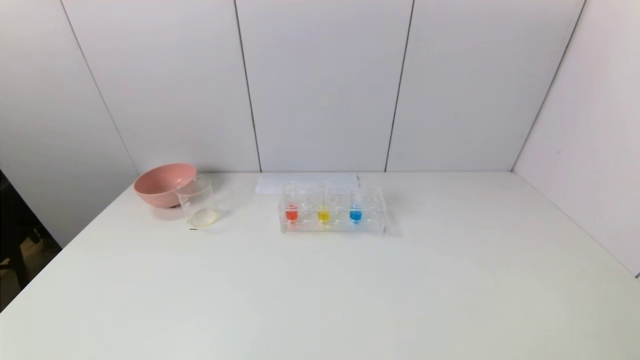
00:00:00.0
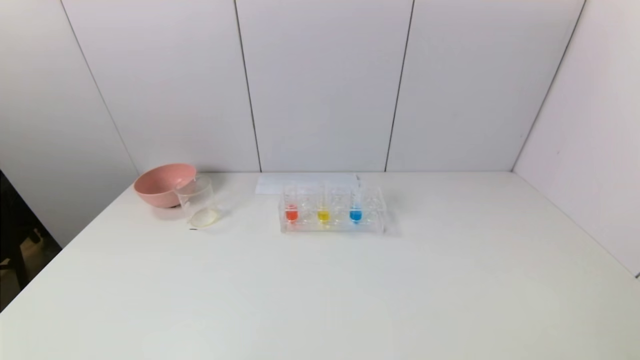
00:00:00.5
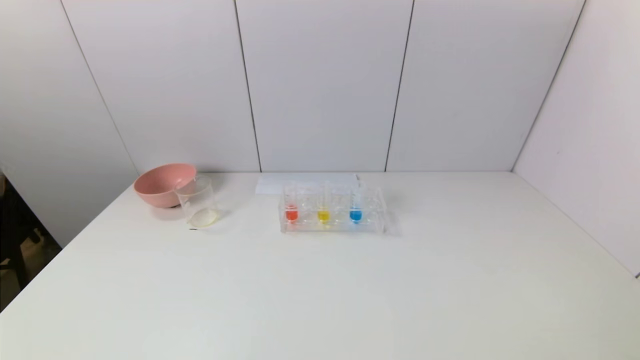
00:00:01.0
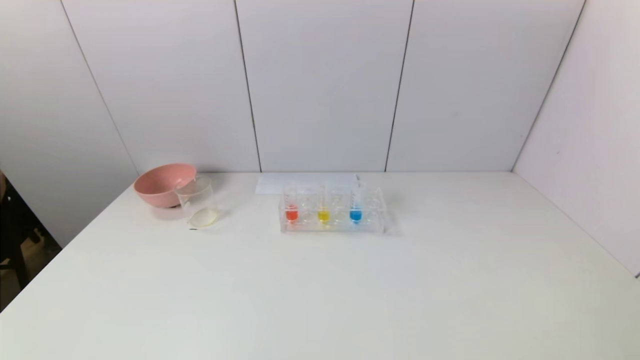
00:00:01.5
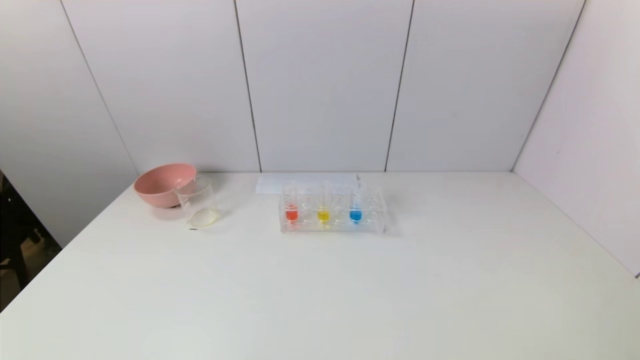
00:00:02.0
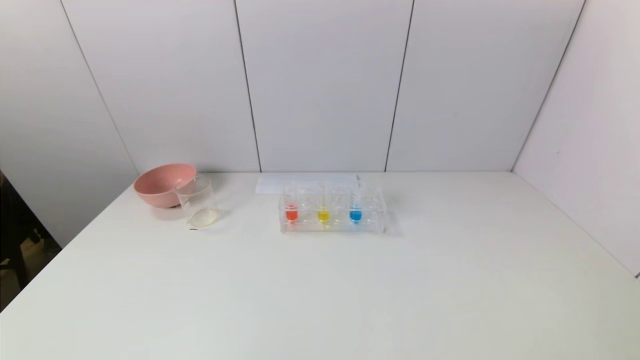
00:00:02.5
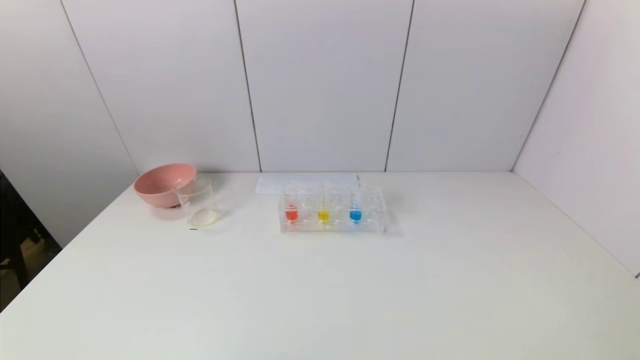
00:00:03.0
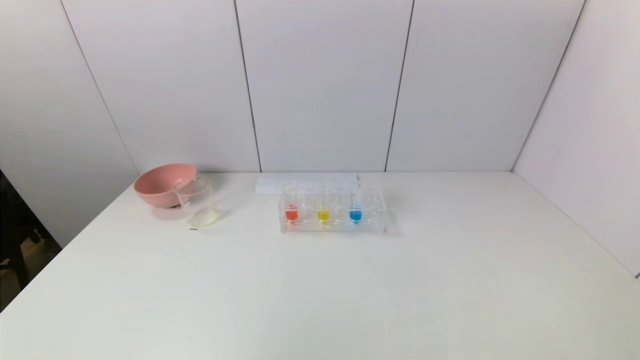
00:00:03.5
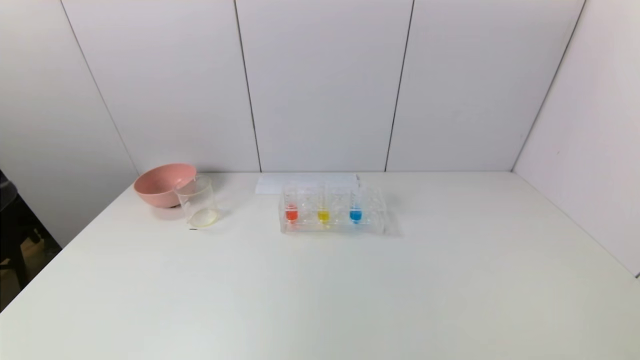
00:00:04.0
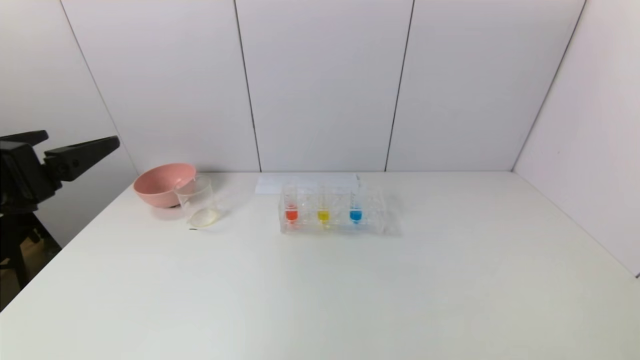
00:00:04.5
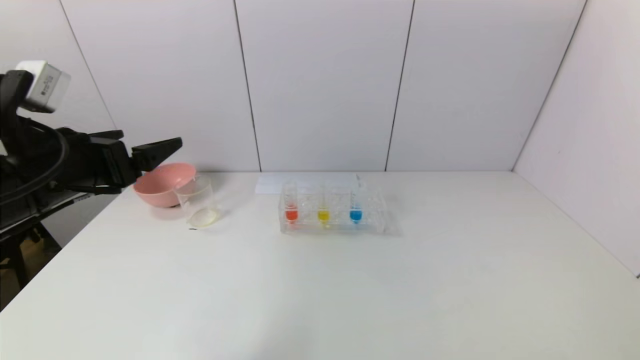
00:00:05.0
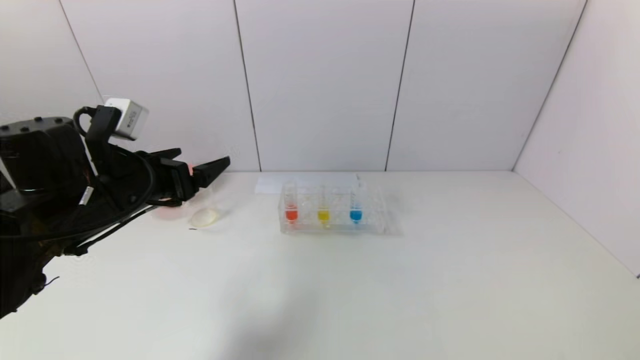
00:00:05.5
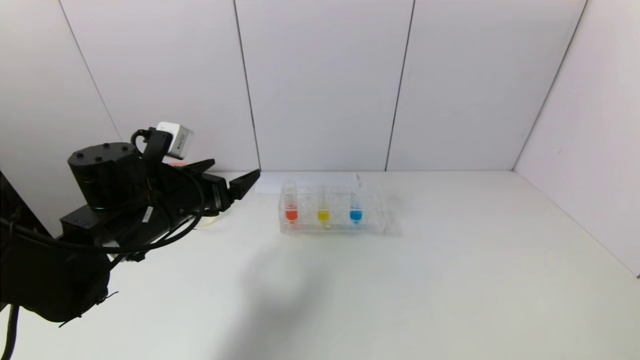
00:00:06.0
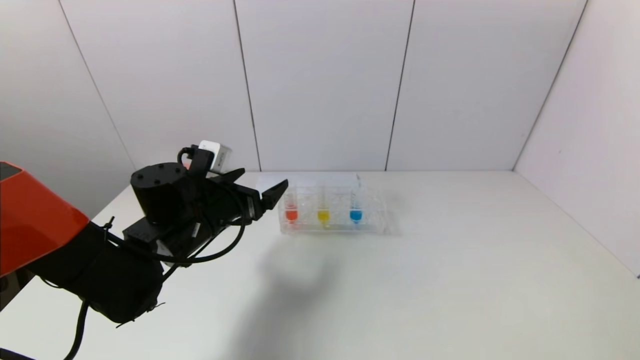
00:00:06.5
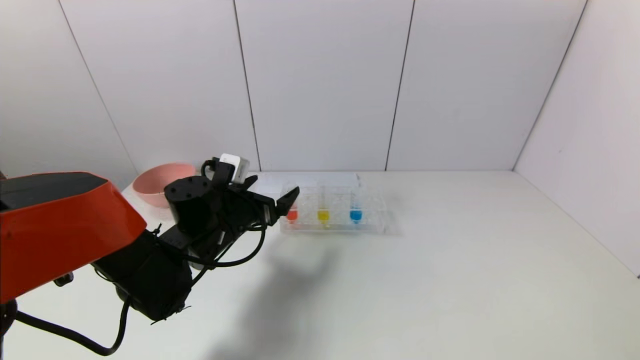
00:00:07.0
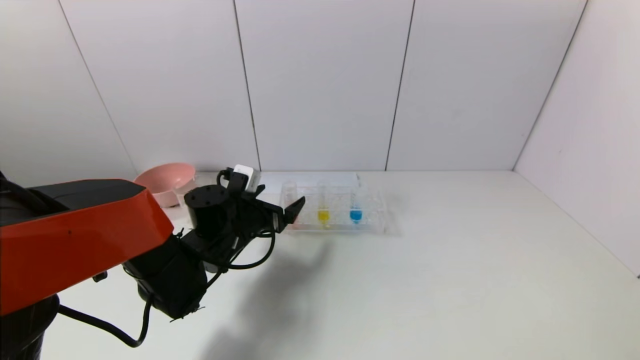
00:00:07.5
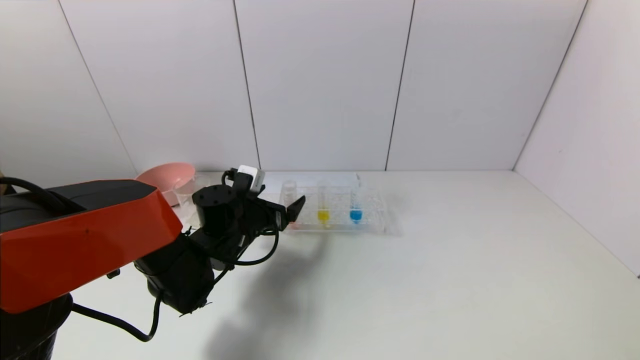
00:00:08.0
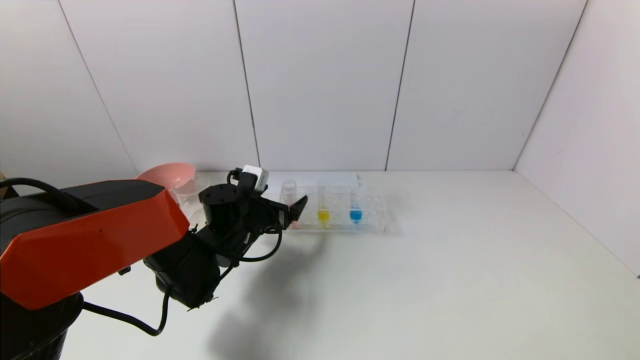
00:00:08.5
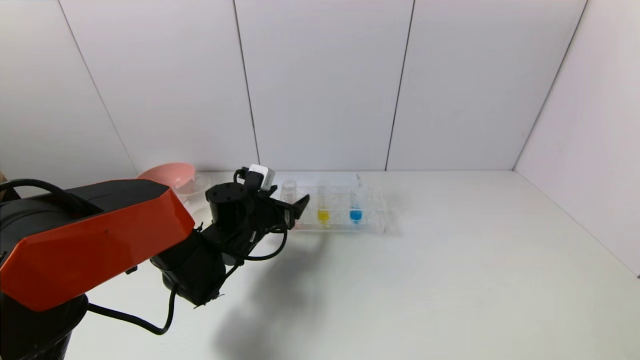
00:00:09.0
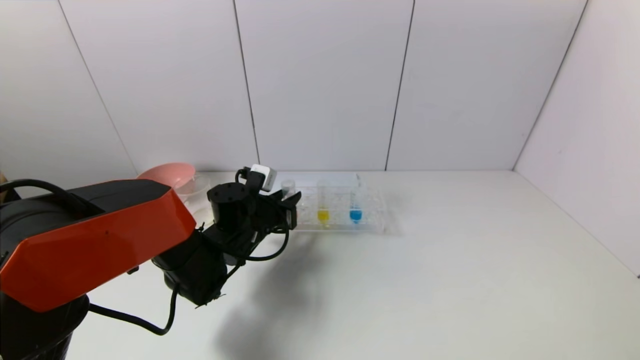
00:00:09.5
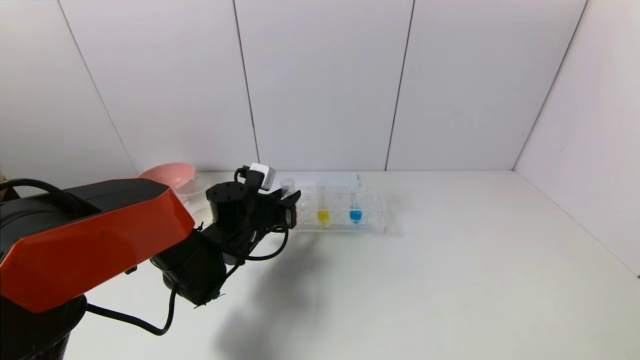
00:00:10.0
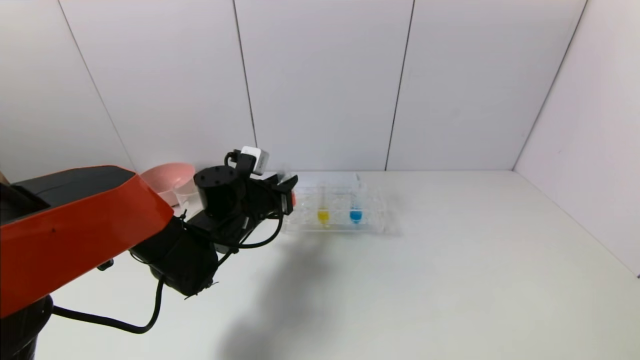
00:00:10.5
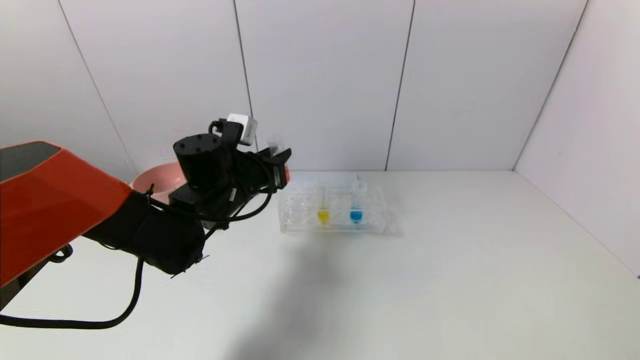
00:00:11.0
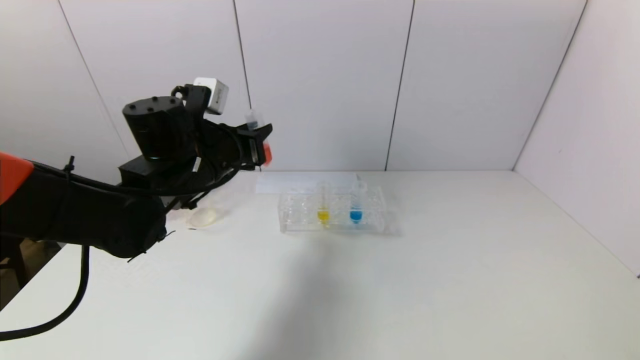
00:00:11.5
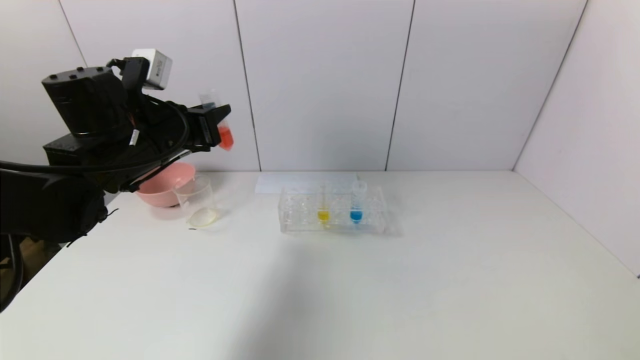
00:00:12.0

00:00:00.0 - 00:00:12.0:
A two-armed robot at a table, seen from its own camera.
Task of the whole recording: pick up the test tube with yellow pigment and the test tube with red pigment by grippers and pour them into the beaker.
Step, 00:00:00.0 - 00:00:09.5: Grasp the red reagent with the left gripper.
00:00:00.0 - 00:00:02.0: Both grippers stay about where they are.
00:00:04.0 - 00:00:06.0: The left gripper goes some 25 cm forward and downward.
00:00:06.0 - 00:00:08.0: The left gripper goes approximately 15 cm downward, to the right and forward.
00:00:08.0 - 00:00:10.0: The left gripper closes.
00:00:10.0 - 00:00:12.0: The left gripper heads upward and to the left, covering approximately 20 cm.

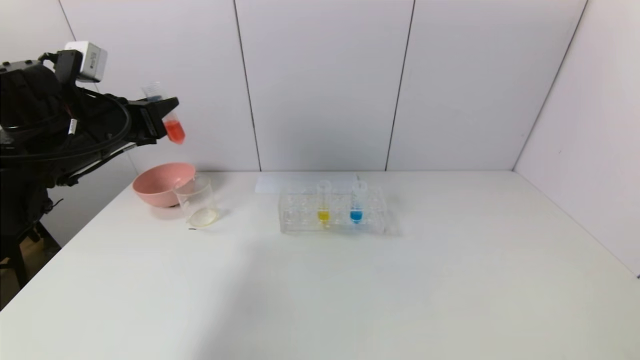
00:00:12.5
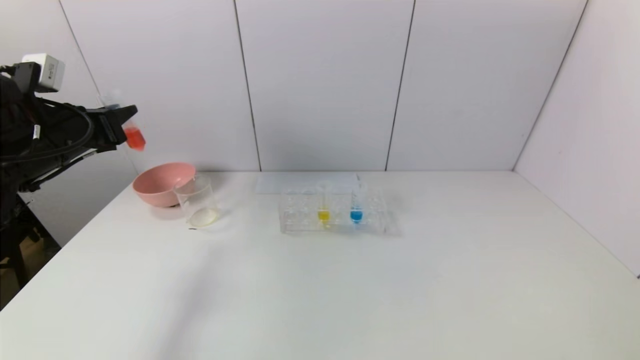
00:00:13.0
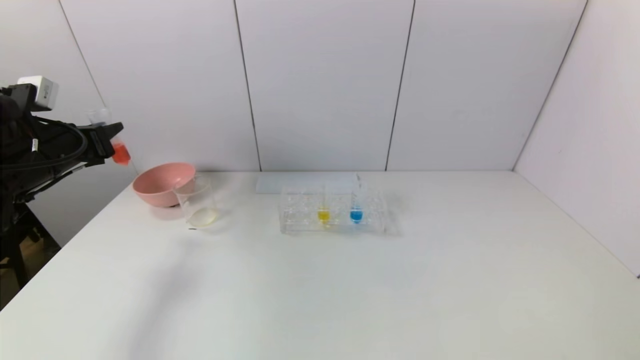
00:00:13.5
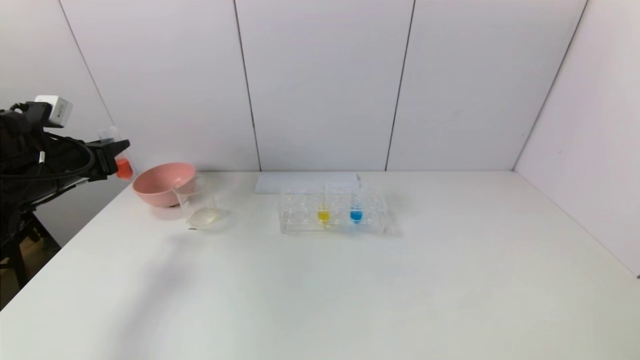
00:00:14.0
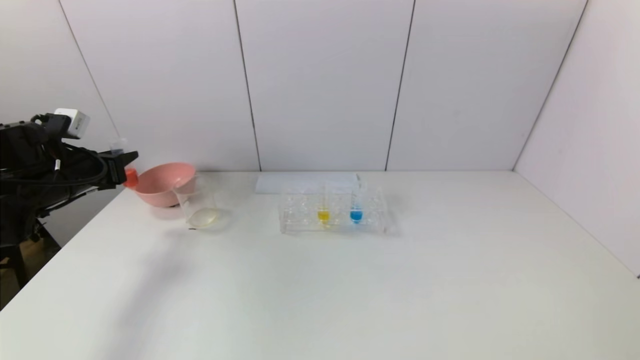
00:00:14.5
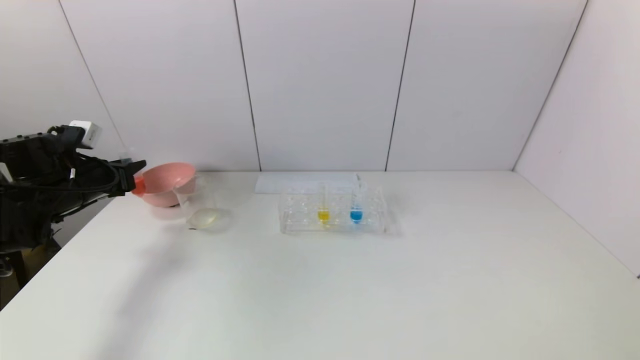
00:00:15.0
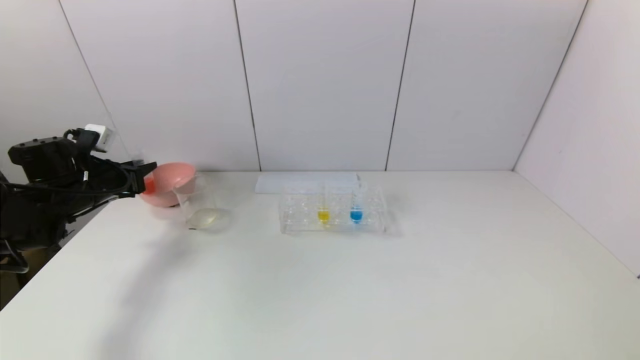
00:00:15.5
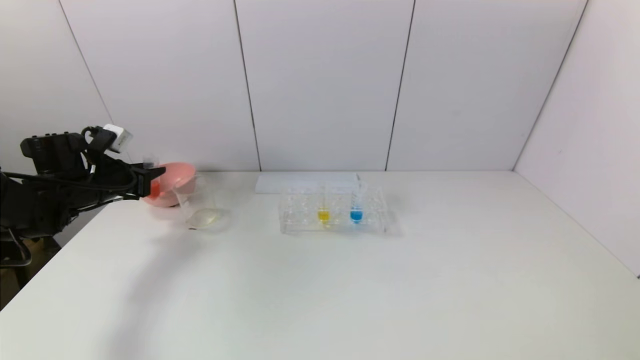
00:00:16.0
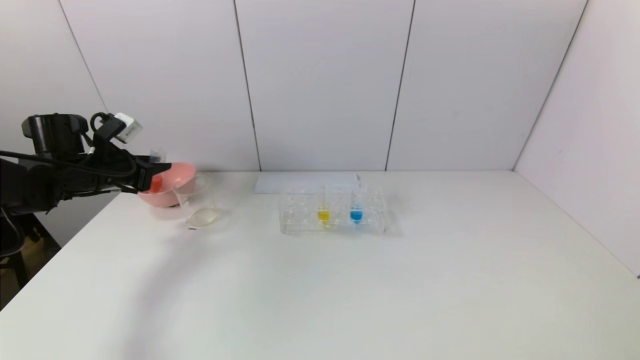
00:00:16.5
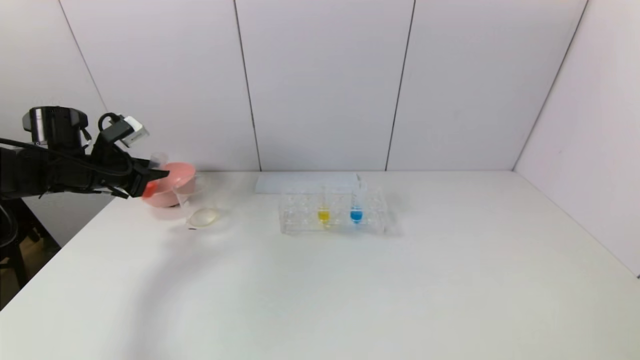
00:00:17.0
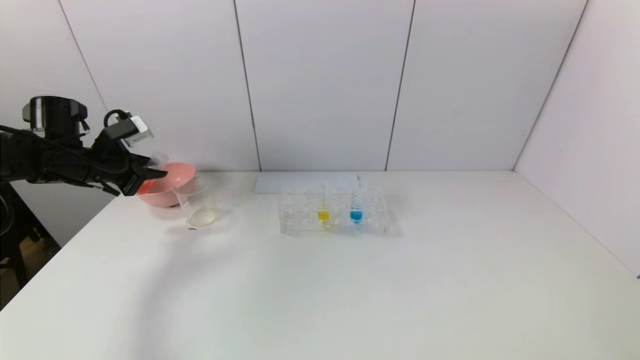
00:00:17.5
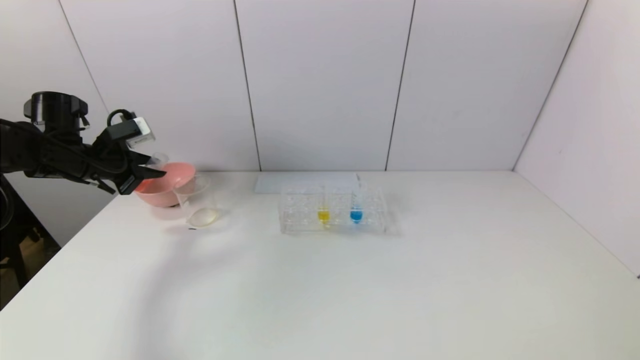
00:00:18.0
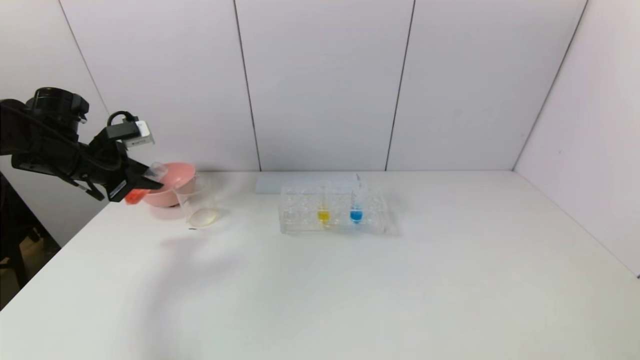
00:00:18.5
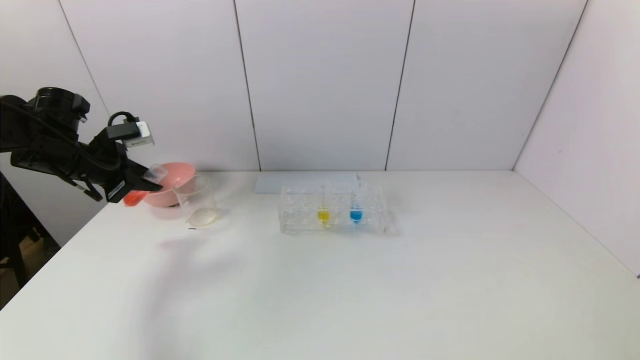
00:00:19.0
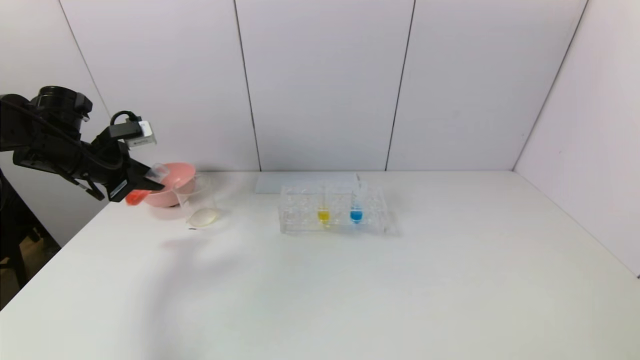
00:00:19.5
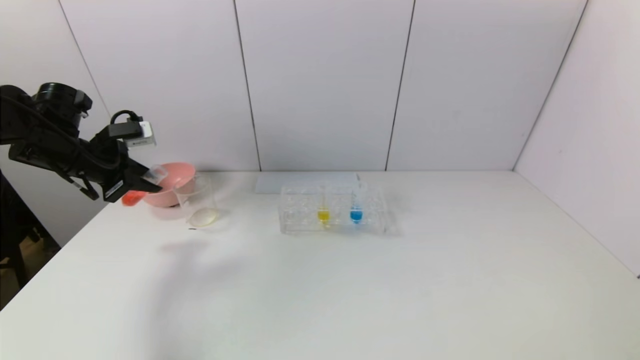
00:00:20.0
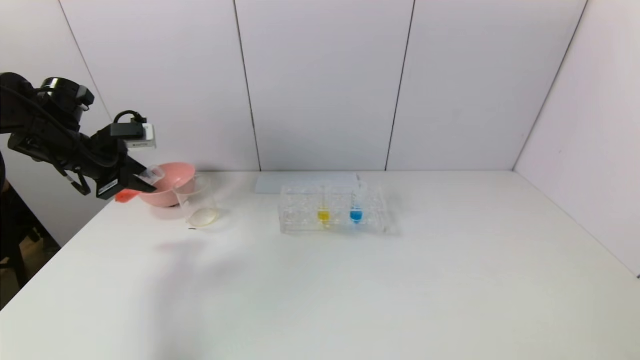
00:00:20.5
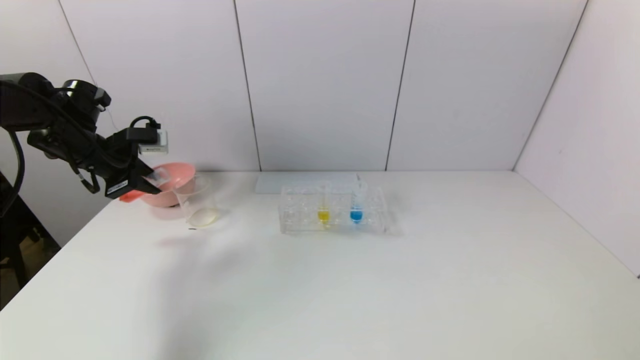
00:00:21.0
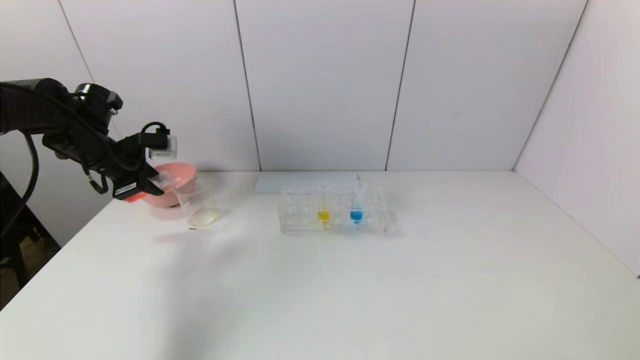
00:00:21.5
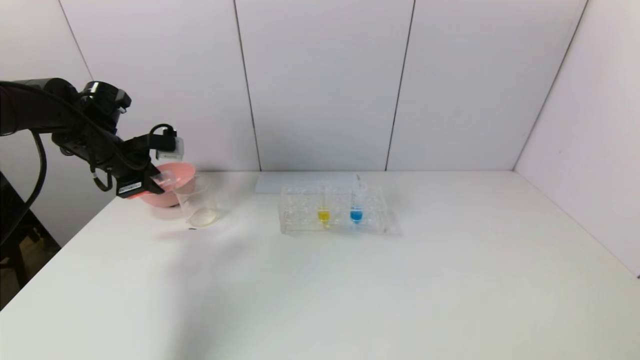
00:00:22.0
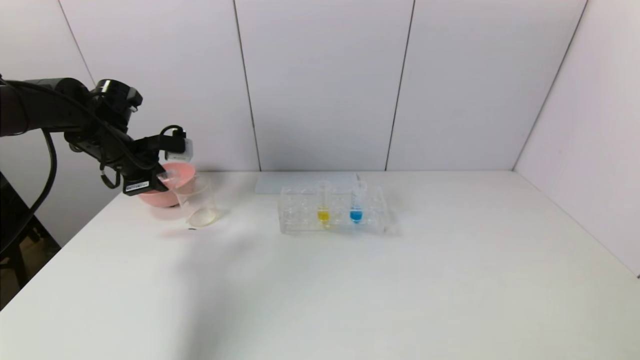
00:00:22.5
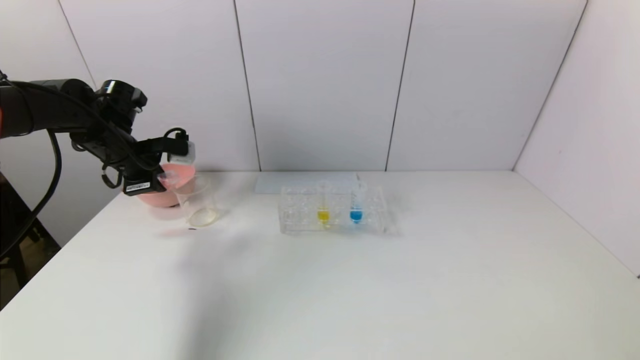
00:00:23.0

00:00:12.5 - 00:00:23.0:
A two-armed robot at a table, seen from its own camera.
Task of the whole recording: pick up the test tube with yellow pigment and the test tube with red pigment by grippers and pour them into the beaker.
00:00:12.5 - 00:00:14.5: The left gripper is displaced to the left and downward by some 15 cm.
00:00:19.0 - 00:00:21.0: The grippers make only small movements.
00:00:21.0 - 00:00:23.0: The grippers make only small movements.
